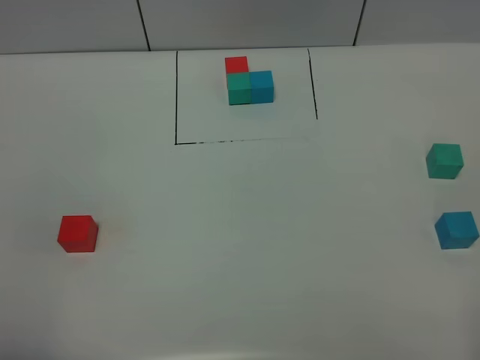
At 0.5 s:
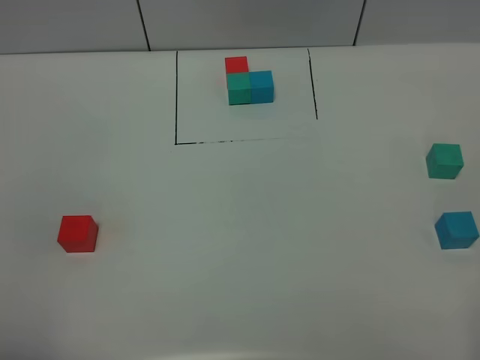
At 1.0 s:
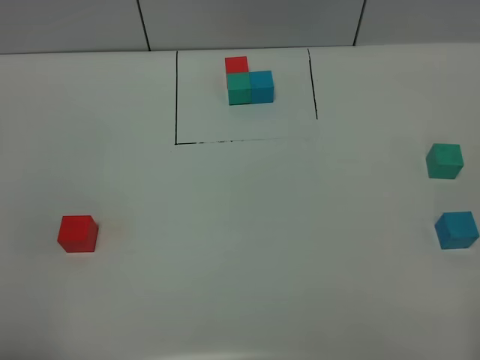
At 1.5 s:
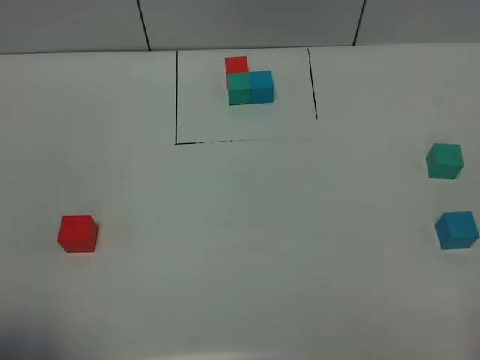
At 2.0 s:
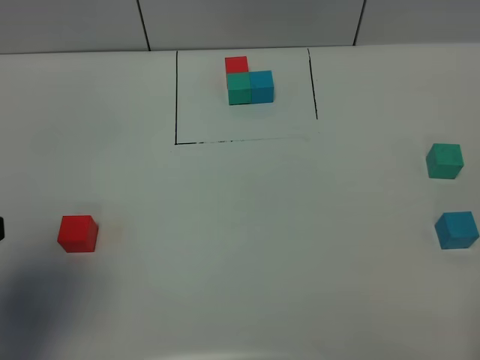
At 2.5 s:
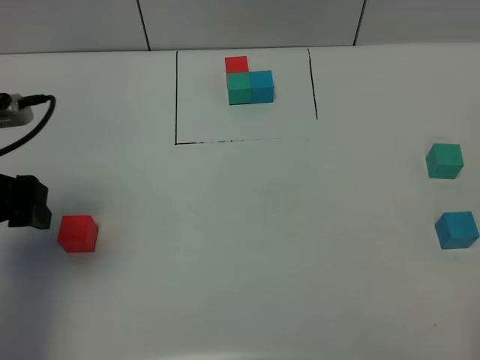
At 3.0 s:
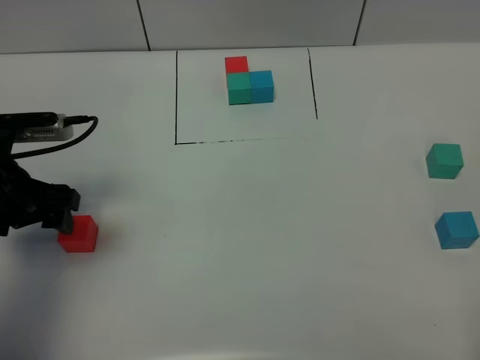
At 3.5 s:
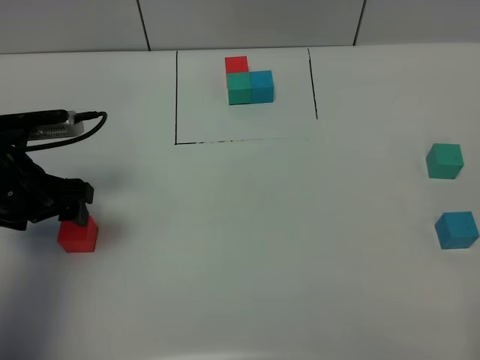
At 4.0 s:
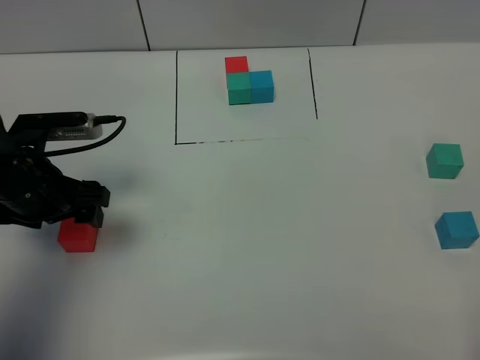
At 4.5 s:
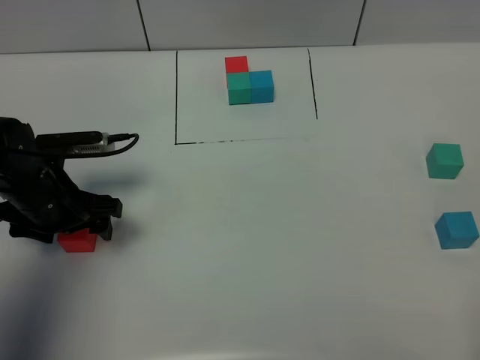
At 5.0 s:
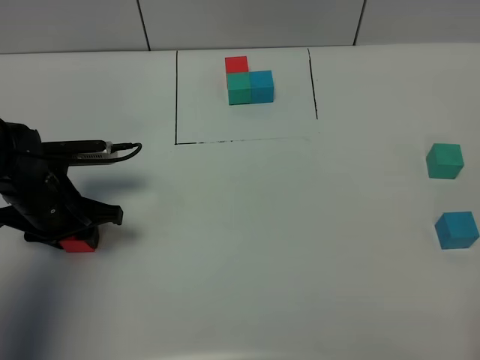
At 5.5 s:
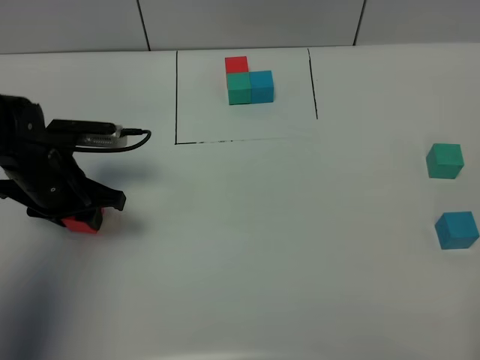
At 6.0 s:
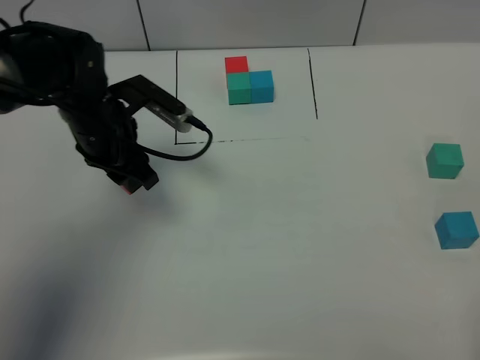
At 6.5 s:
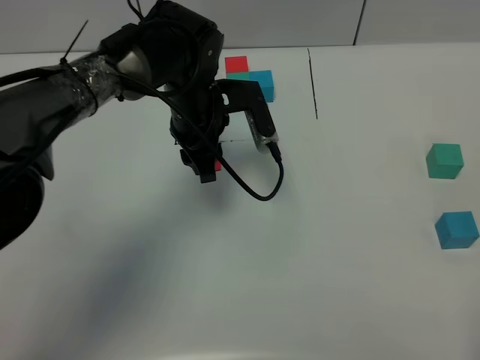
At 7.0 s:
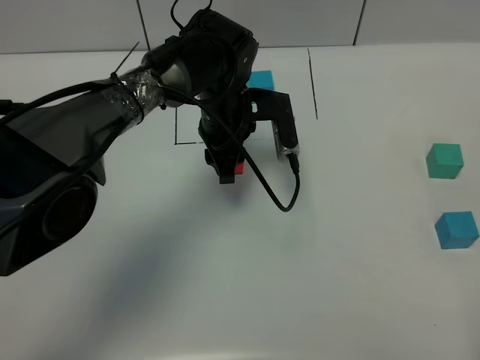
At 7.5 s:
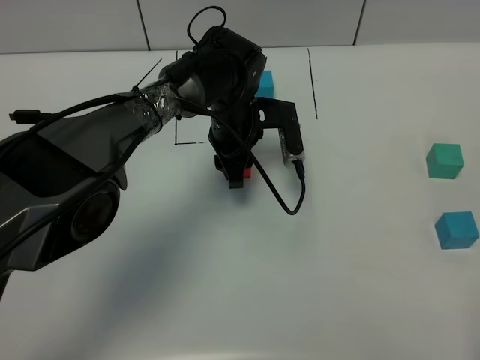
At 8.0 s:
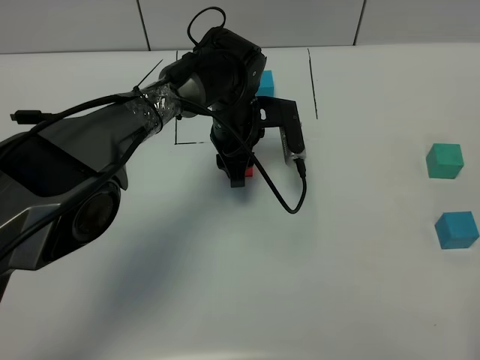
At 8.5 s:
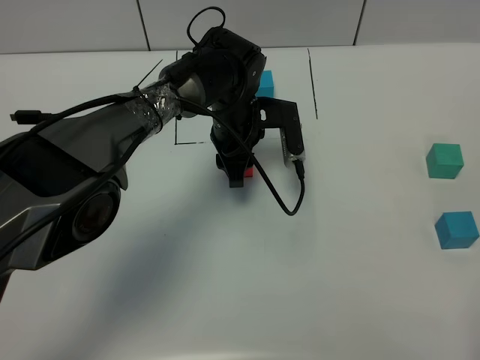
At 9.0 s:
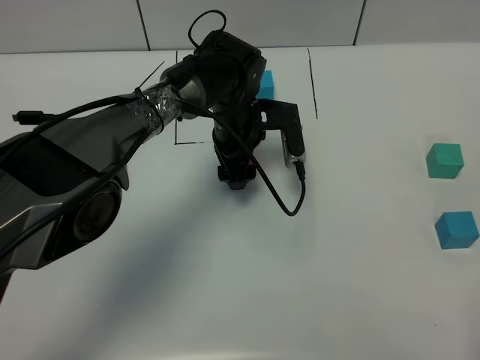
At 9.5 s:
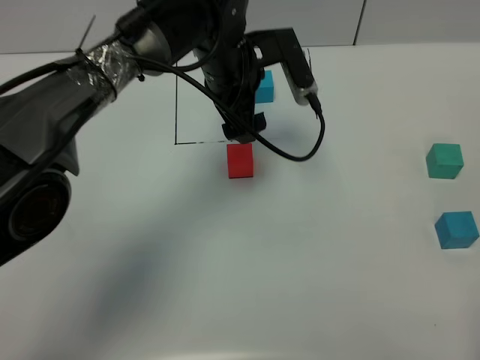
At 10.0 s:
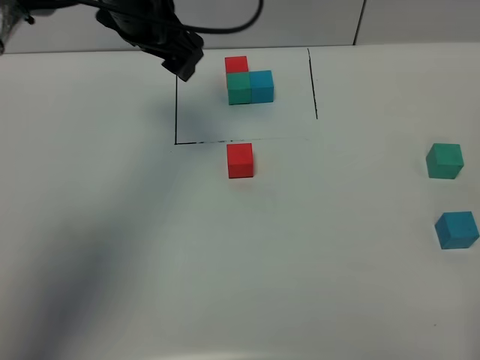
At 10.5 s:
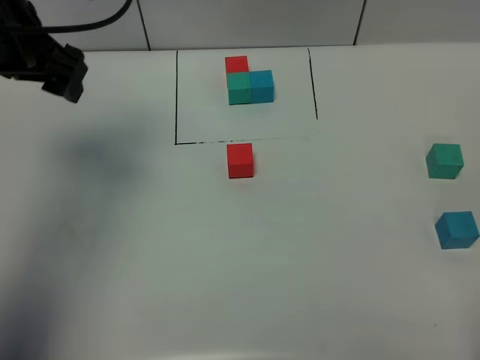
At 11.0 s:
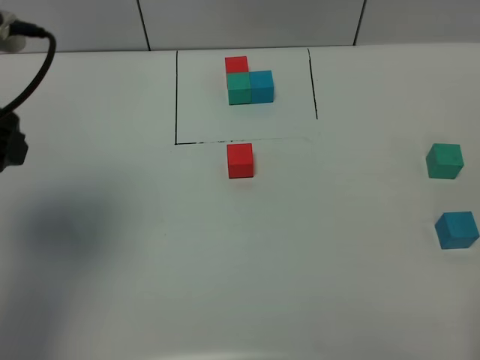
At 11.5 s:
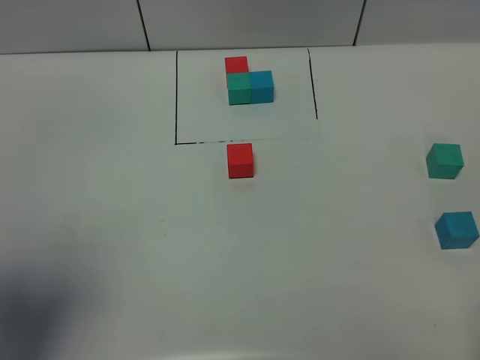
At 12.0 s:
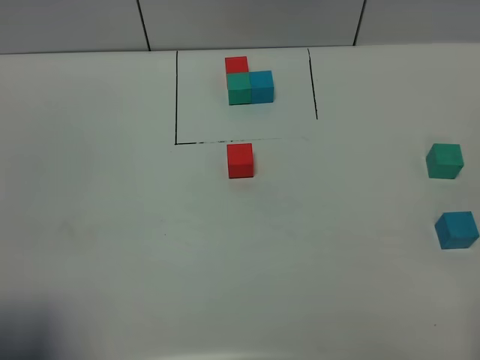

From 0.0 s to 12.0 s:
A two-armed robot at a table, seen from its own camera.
Task of the whole recording: According to the building block template in front, assemble the scattered blocks together.
Step, from 0.0 s to 9.0 s: Put the red build block in the center of the table.
From 0.0 s to 2.0 s: The left gripper is displaced forward by roughly 15 cm.
From 2.0 s to 4.0 s: The left gripper is displaced forward and downward by some 20 cm.
From 4.0 s to 6.0 s: The left gripper heads forward and to the right, covering some 10 cm, and closes its fingers.
From 6.0 s to 8.0 s: The left gripper shifts some 15 cm to the right.
From 8.0 s to 10.0 s: The left gripper goes approximately 20 cm upward and to the left, and opens up.
From 10.0 s to 12.0 s: The left gripper is displaced backward and to the left by roughly 40 cm.

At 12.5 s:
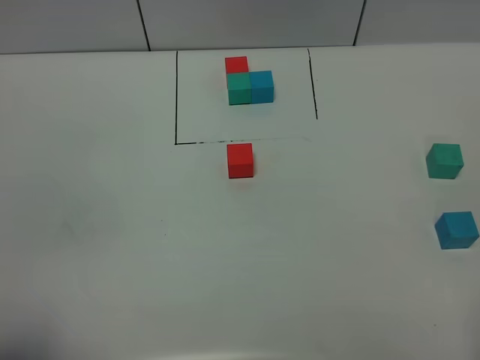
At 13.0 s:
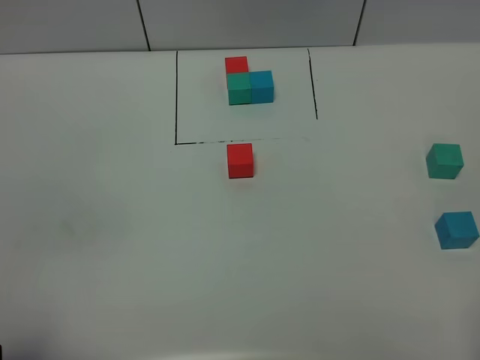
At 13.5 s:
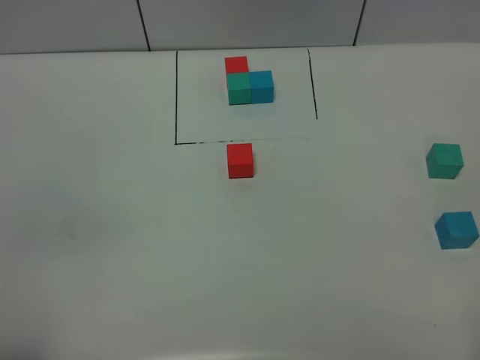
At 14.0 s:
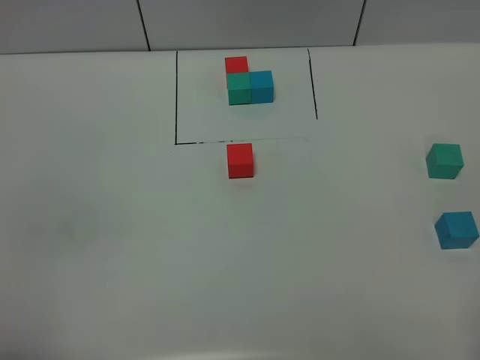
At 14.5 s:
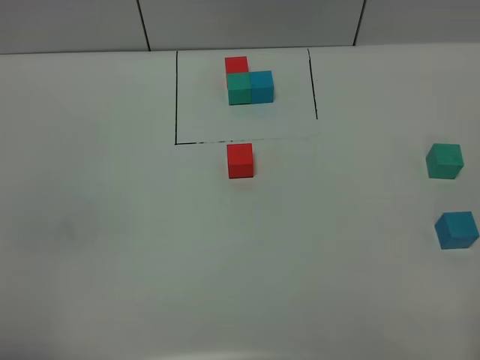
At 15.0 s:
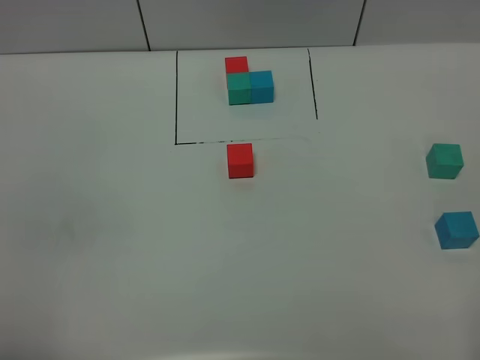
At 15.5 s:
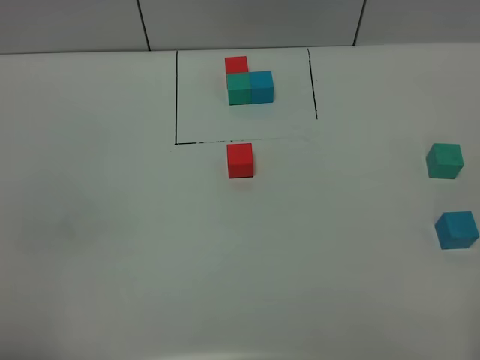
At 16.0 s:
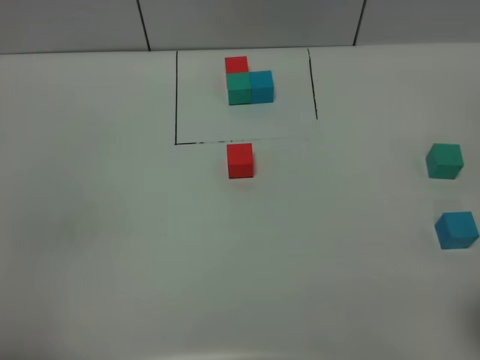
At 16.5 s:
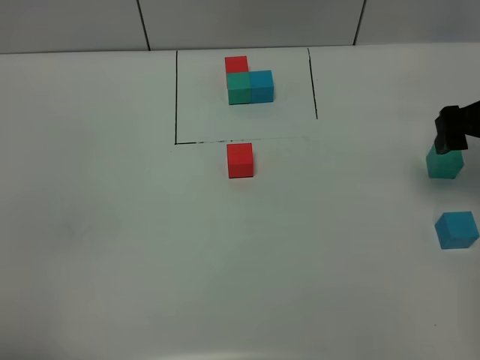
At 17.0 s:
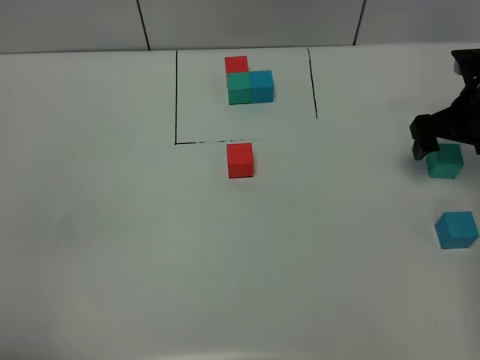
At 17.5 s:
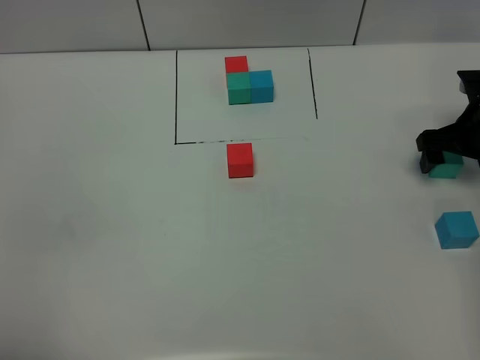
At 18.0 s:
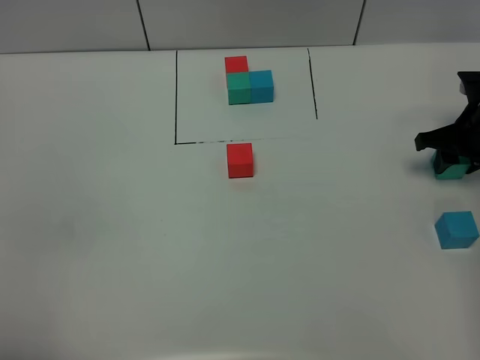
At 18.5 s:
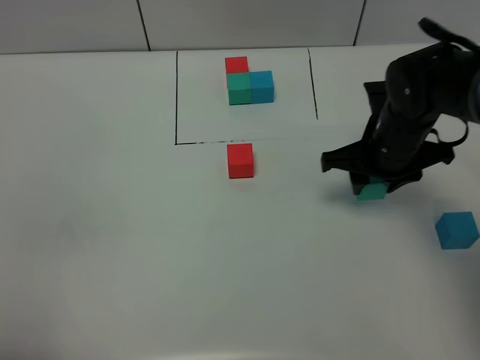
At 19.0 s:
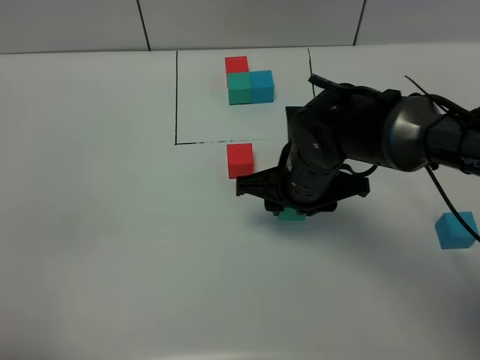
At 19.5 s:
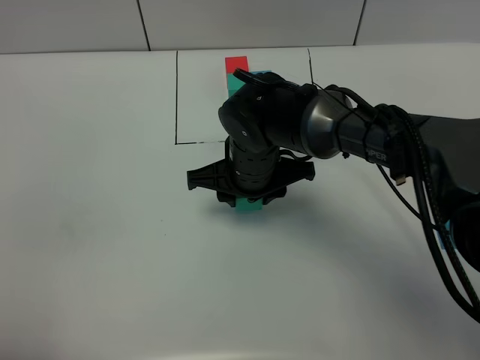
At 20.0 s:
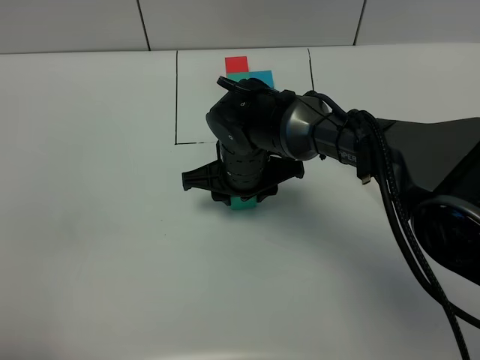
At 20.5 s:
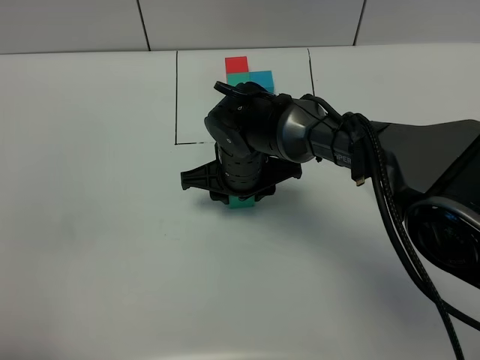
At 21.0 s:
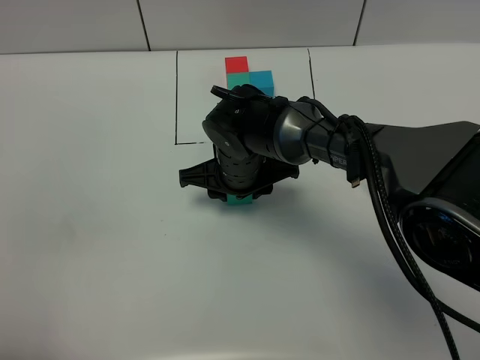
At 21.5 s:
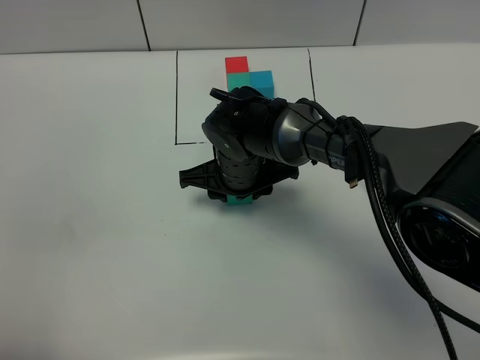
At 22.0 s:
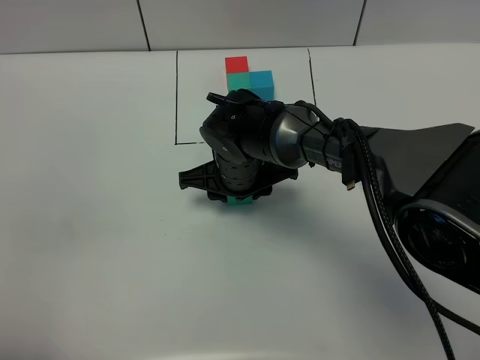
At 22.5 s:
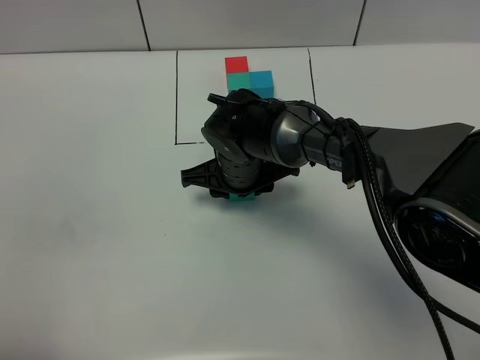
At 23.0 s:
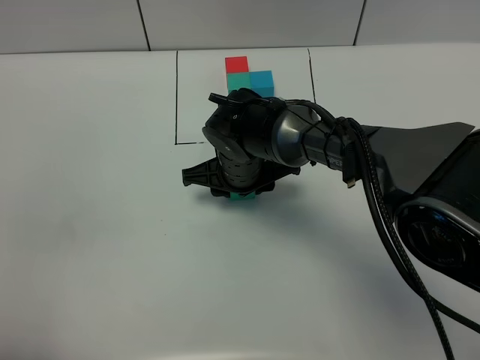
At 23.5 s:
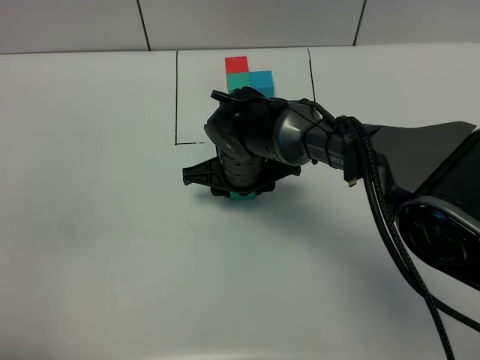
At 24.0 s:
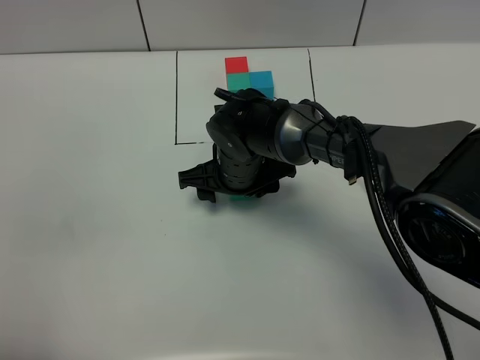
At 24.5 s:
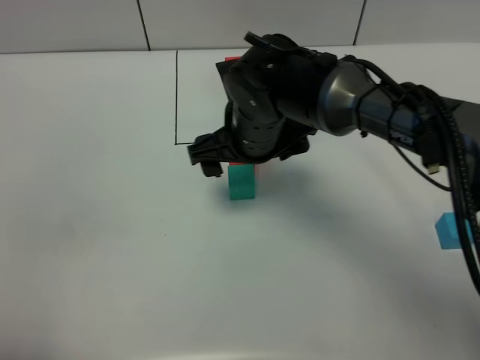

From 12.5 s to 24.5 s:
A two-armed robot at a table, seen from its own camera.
Task of the whole recording: According to the building block template in front, assemble the scattered blocks together.
Step, from 12.5 s to 24.0 s: Put the green build block on the behind of the red build block.
From 14.5 s to 16.5 s: The right gripper heads forward, covering roughly 35 cm.
From 16.5 s to 18.5 s: The right gripper goes roughly 15 cm to the left and downward, and closes.
From 18.5 s to 20.5 s: The right gripper shifts roughly 20 cm to the left.
From 20.5 s to 22.5 s: The two grippers keep their place.
From 22.5 s to 24.5 s: The right gripper moves upward, about 10 cm, and opens up.

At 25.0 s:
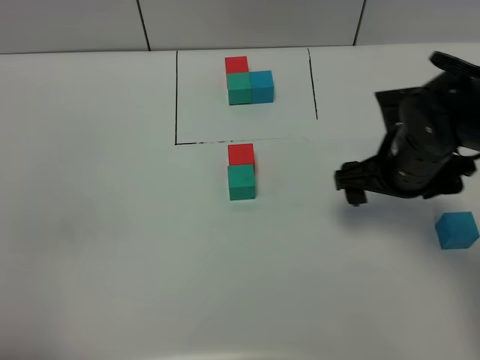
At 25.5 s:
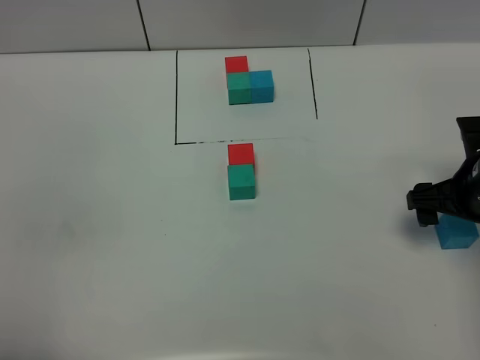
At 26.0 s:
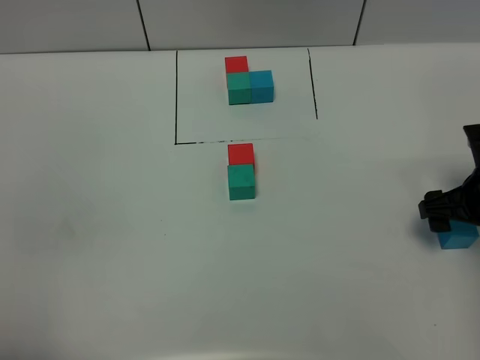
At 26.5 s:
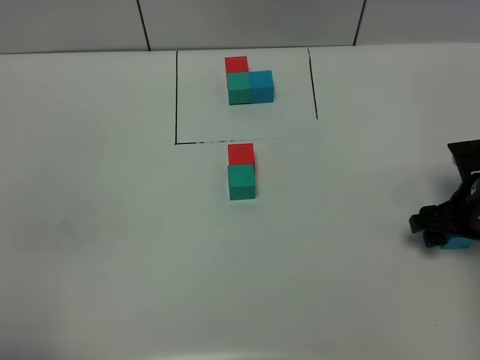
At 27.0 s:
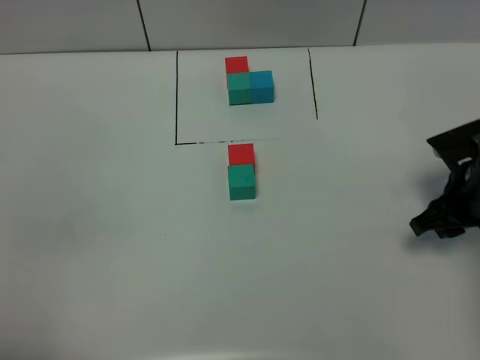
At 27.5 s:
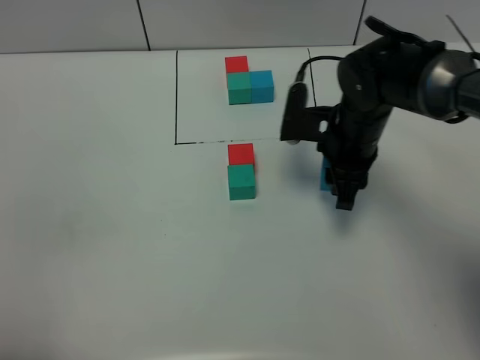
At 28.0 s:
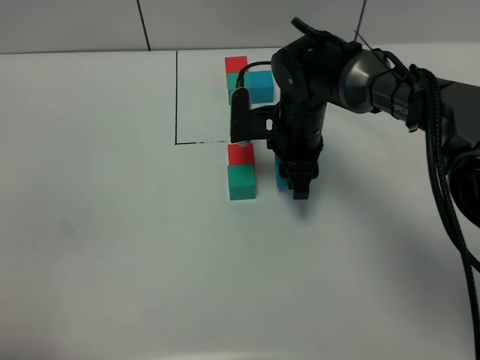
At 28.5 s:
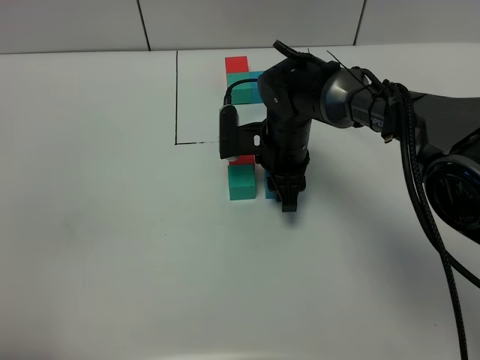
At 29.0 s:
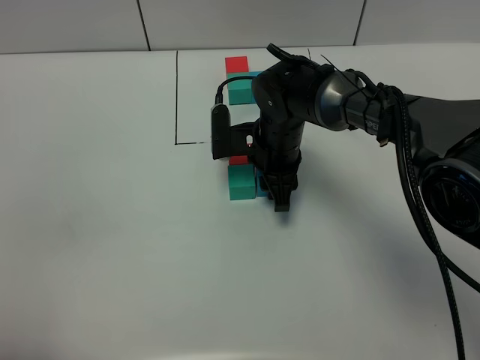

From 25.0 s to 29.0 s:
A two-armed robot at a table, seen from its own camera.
Task of the whole recording: According to the building block template in front, assemble the scattered blocks together.
From 25.0 s to 27.0 s: The right gripper heads to the right, covering approximately 5 cm, and closes up.
From 27.0 s to 29.0 s: The right gripper heads to the left, covering roughly 25 cm.
